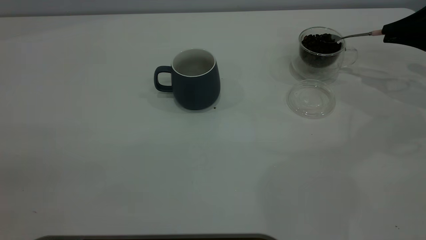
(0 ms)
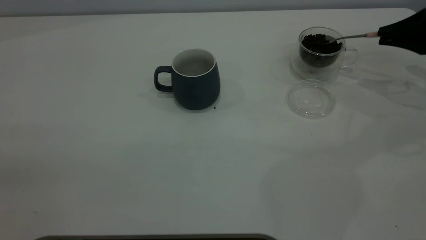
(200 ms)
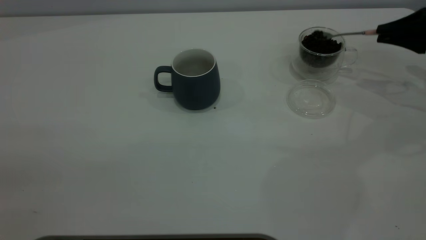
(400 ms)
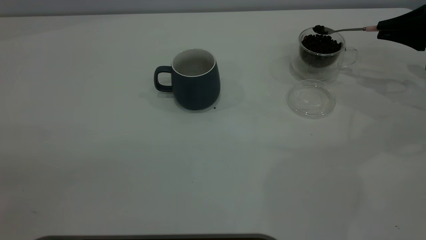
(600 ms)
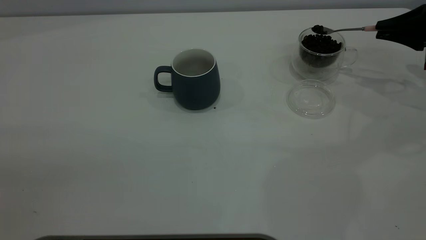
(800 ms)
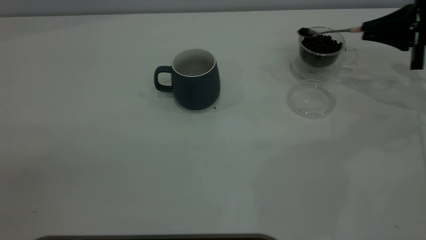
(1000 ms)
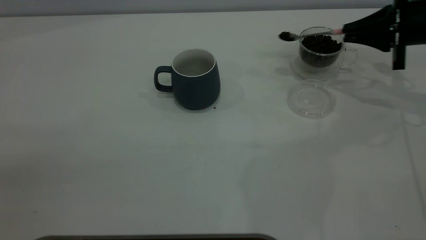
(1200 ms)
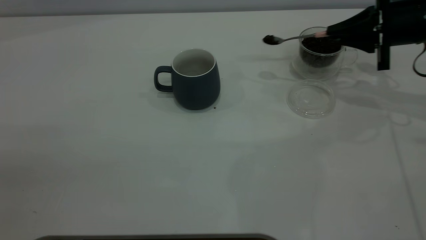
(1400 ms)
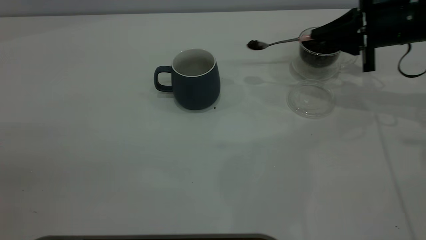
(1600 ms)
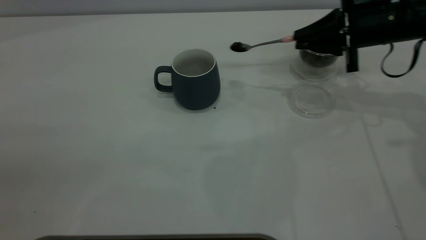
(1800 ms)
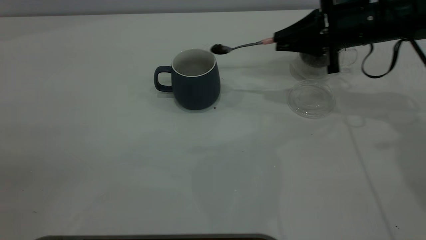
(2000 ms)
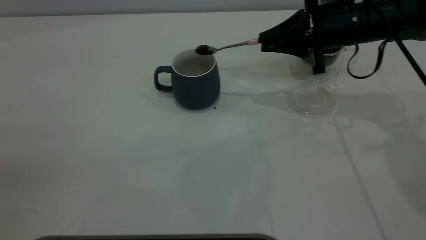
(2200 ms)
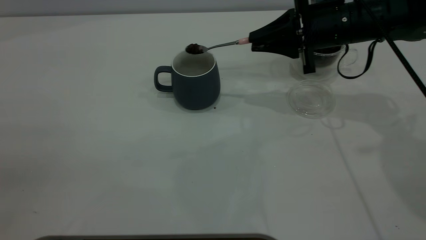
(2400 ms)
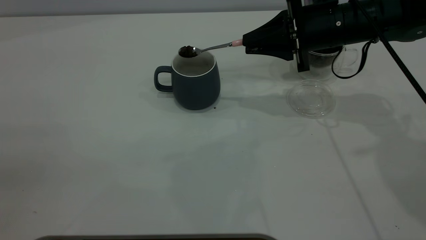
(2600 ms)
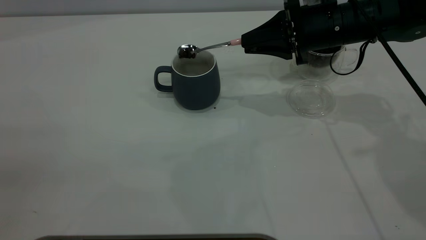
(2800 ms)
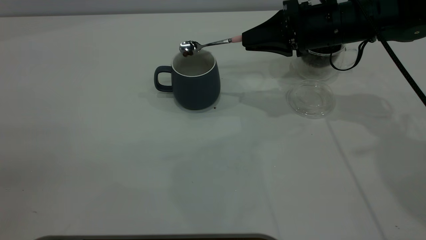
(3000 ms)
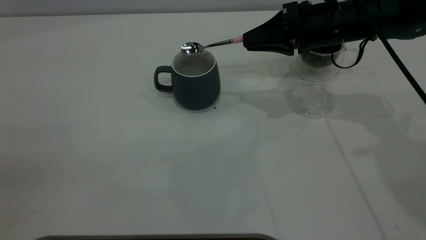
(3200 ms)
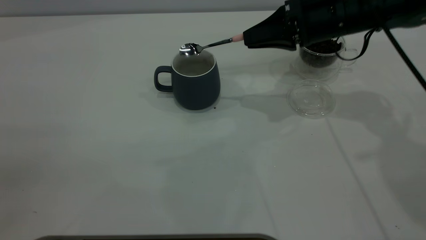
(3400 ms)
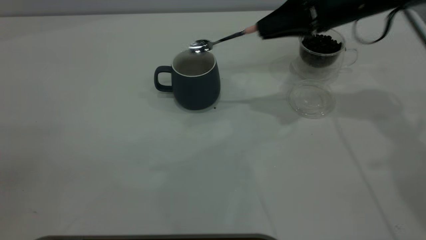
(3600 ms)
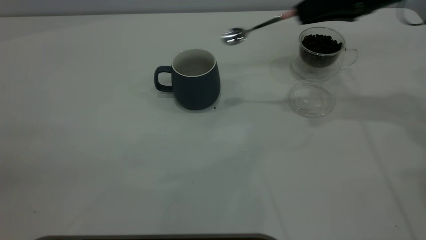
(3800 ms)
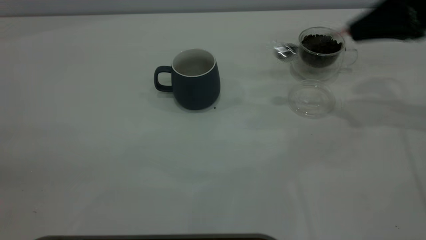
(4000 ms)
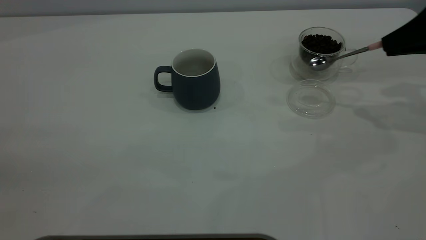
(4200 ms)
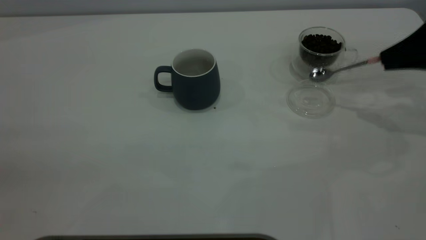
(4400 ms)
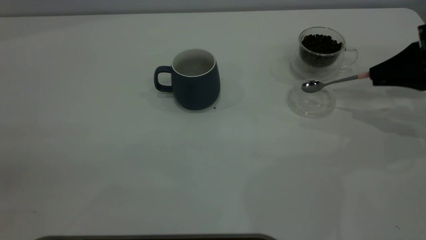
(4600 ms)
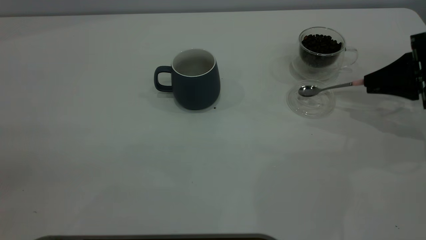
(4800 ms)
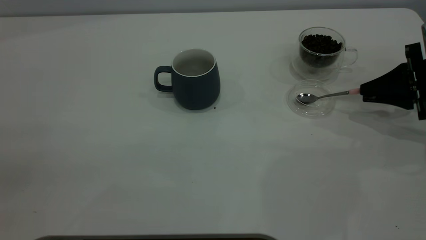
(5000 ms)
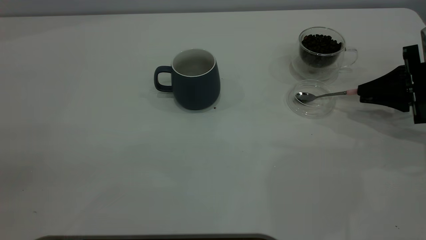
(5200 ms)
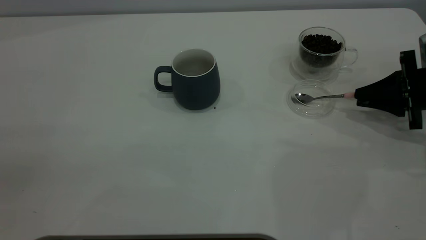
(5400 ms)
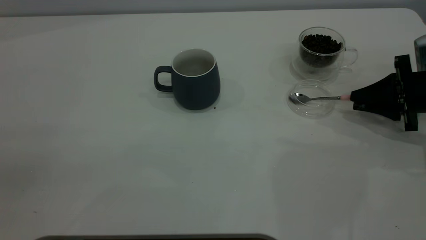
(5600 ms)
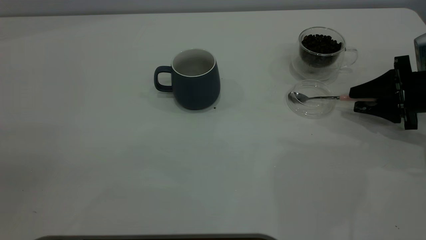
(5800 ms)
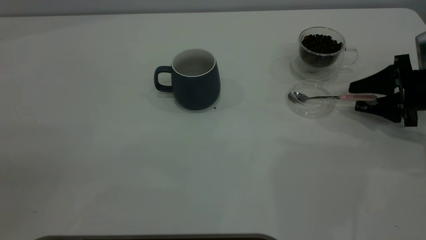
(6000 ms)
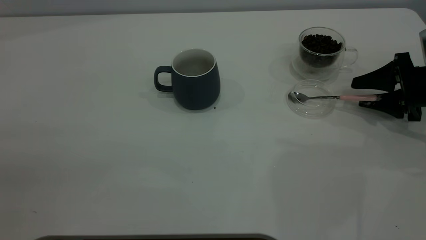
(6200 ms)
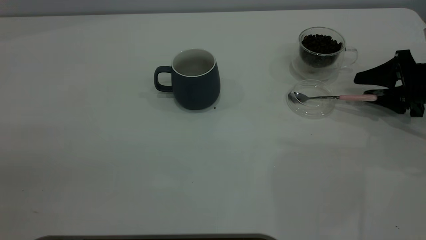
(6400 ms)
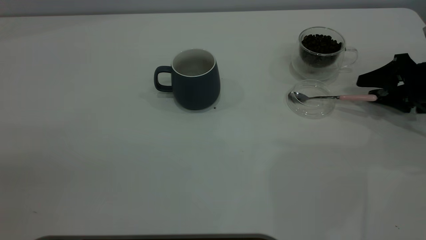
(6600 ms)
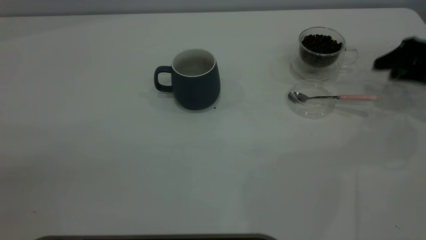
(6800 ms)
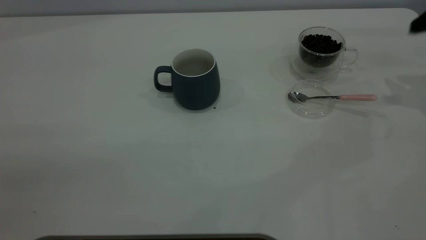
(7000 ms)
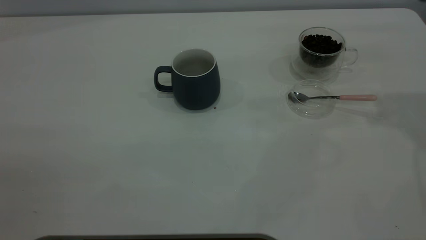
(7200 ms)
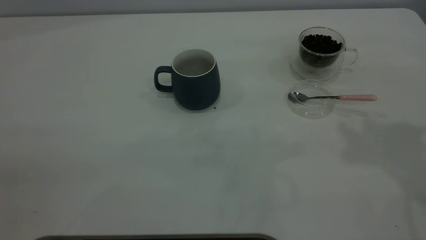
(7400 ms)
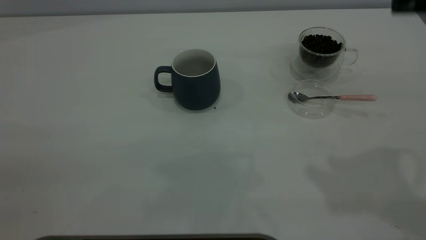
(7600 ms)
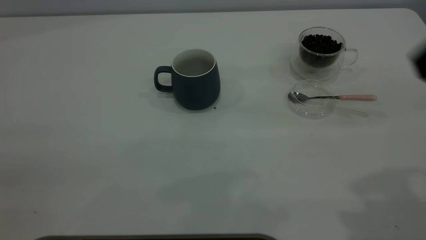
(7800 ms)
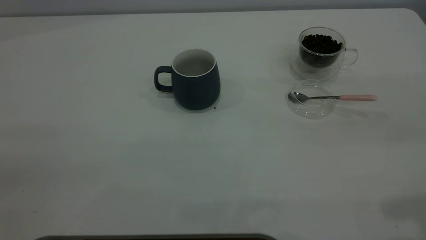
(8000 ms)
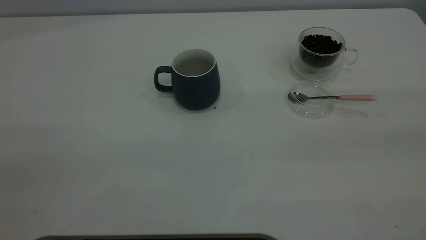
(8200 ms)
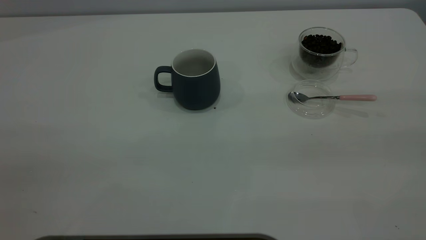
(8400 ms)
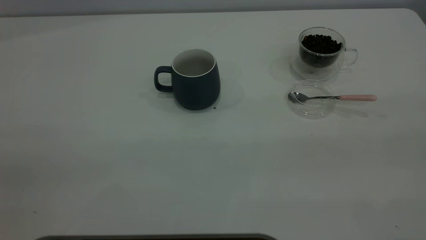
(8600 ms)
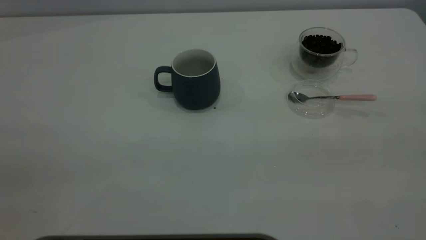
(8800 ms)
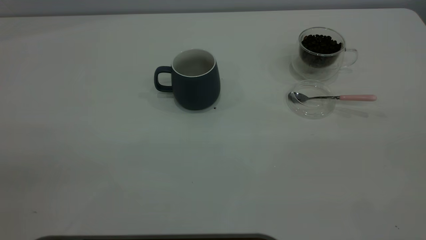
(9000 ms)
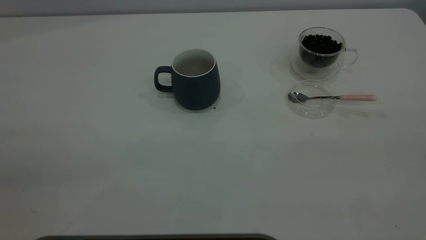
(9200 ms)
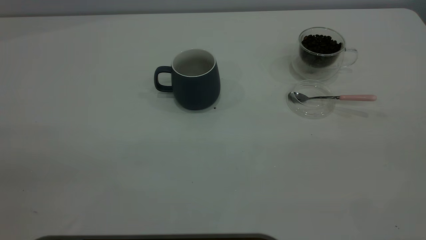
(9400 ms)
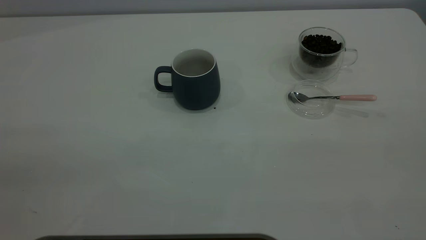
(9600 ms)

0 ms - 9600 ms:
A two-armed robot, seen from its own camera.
Task of the whole recording: the left gripper place the grey cup in the center of the table, the right gripper take the pink spoon from the cup lid and scoop out the coffee beans from the coffee cup and put them into the grey cup, the right gripper put the spoon back into the cup lid.
Step, 0 ms - 3400 ms: Scoop a spoonful of beans into the cup.
Step, 3600 ms - 6600 ms: Place the spoon back in its original place.
0 ms - 1600 ms: The right gripper shifts some 10 cm to the left.
1600 ms - 3200 ms: The right gripper travels to the left by approximately 10 cm.
3200 ms - 4800 ms: The right gripper is displaced to the right by roughly 20 cm.
4800 ms - 6400 ms: The right gripper opens.
6400 ms - 8000 ms: The right gripper moves upward and backward, approximately 35 cm.

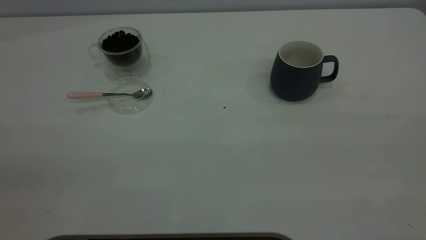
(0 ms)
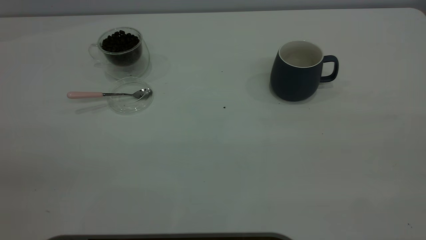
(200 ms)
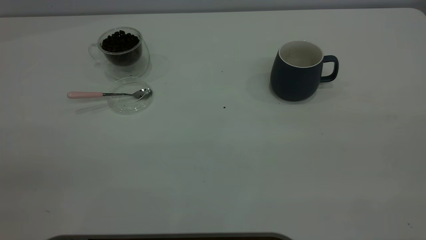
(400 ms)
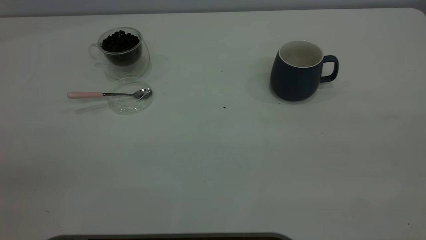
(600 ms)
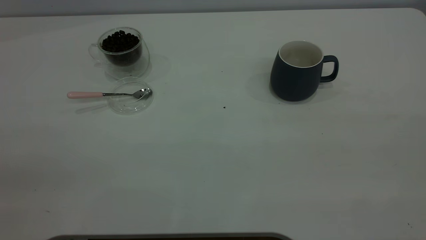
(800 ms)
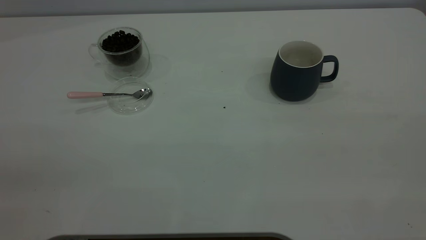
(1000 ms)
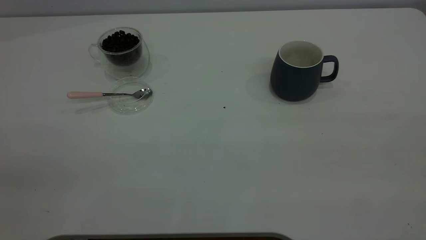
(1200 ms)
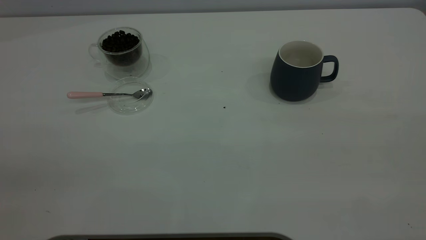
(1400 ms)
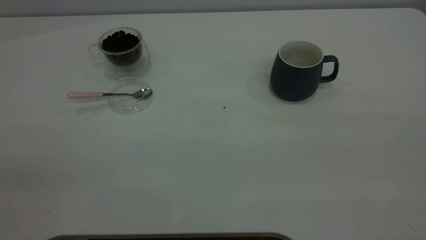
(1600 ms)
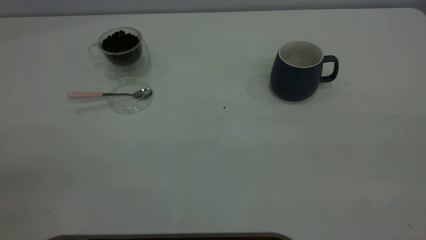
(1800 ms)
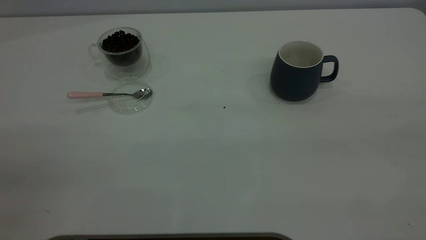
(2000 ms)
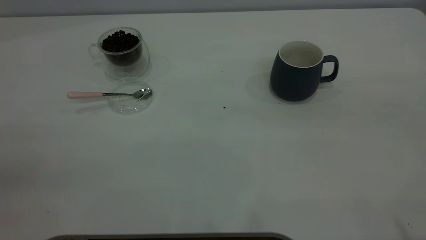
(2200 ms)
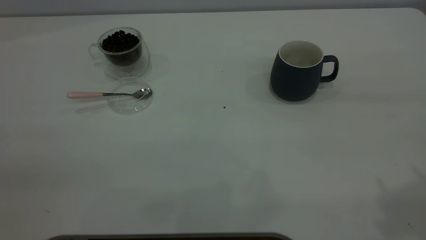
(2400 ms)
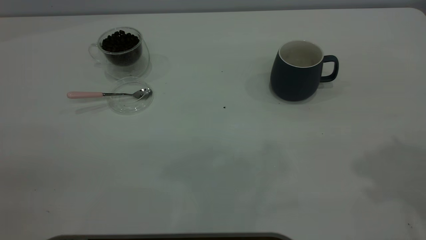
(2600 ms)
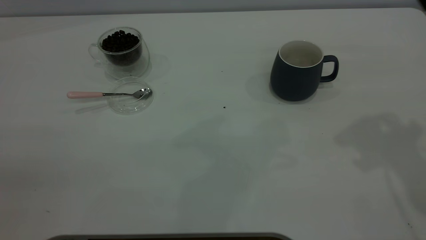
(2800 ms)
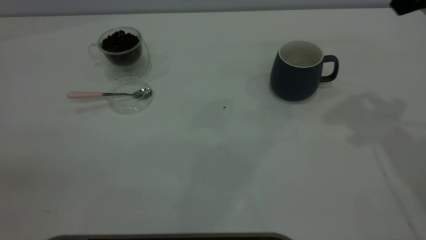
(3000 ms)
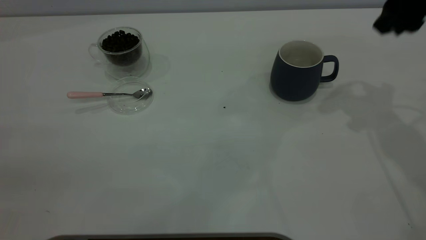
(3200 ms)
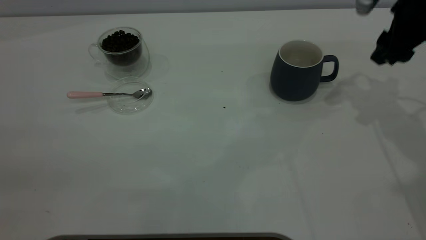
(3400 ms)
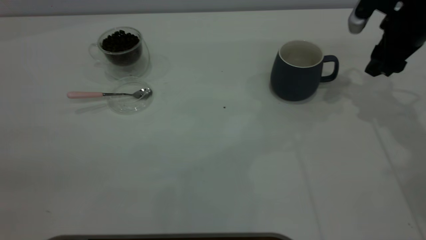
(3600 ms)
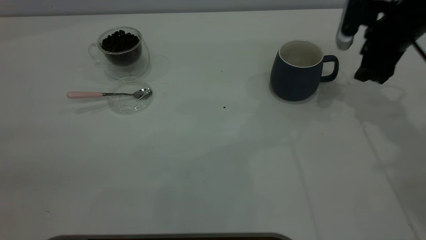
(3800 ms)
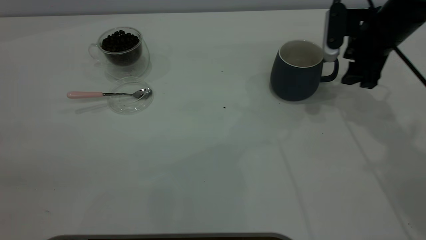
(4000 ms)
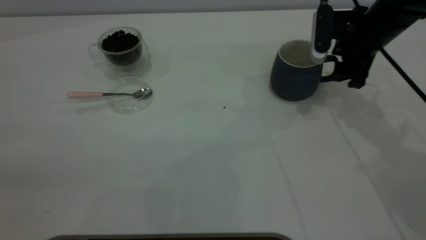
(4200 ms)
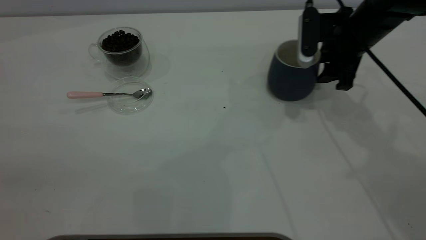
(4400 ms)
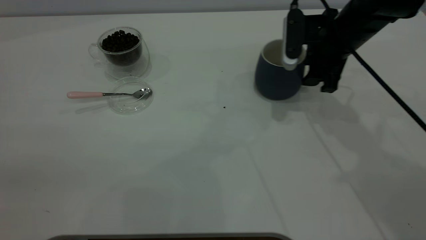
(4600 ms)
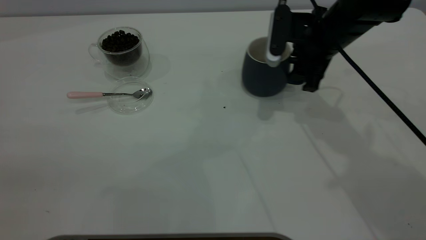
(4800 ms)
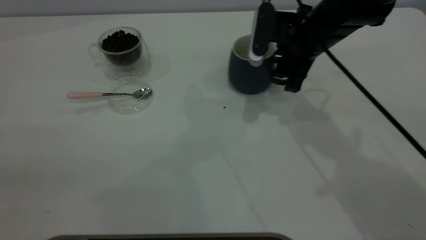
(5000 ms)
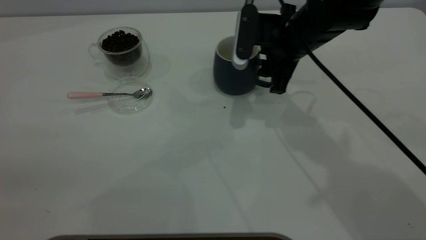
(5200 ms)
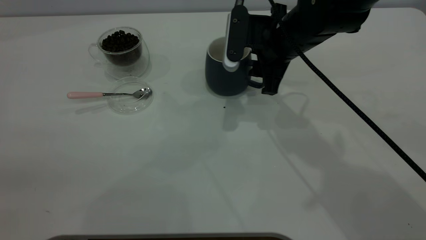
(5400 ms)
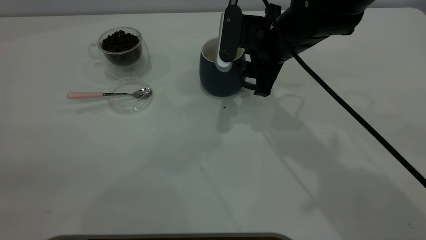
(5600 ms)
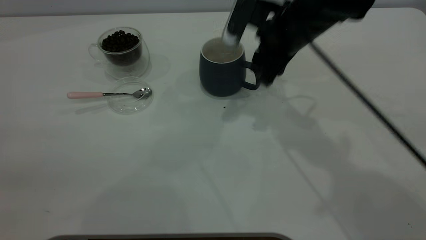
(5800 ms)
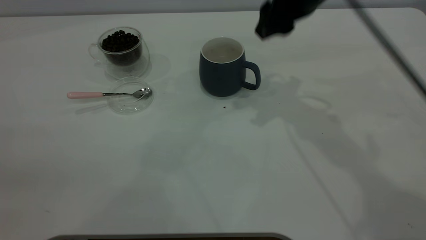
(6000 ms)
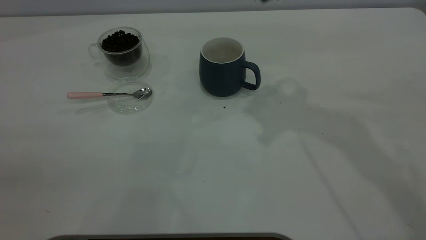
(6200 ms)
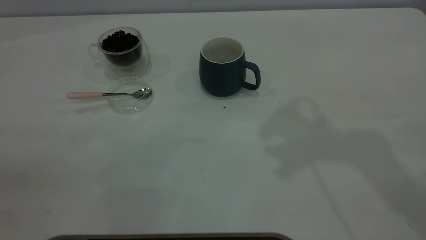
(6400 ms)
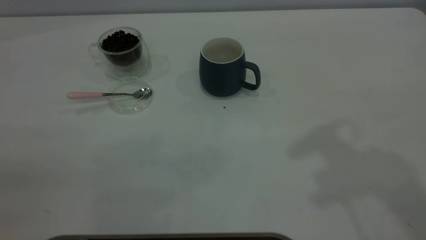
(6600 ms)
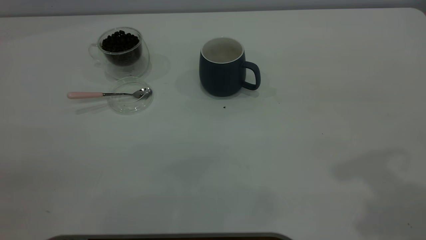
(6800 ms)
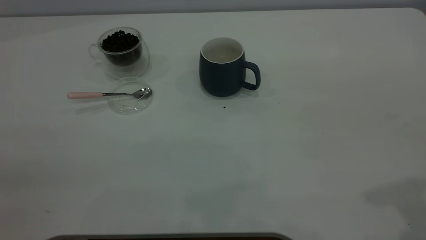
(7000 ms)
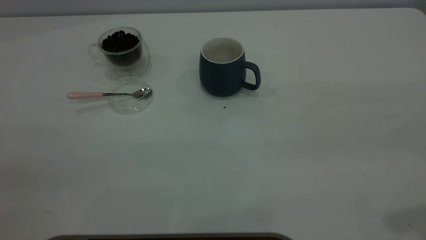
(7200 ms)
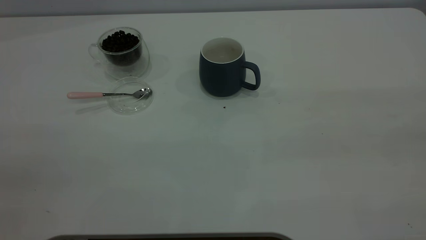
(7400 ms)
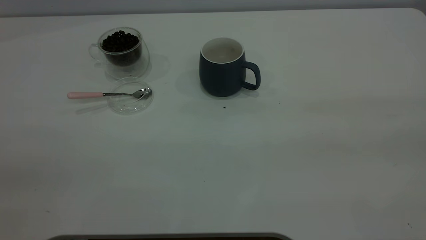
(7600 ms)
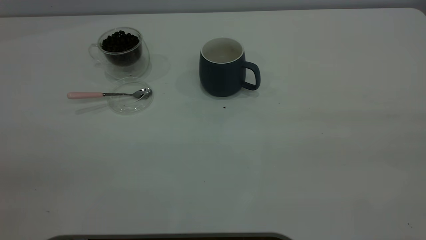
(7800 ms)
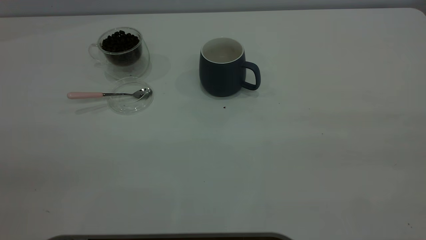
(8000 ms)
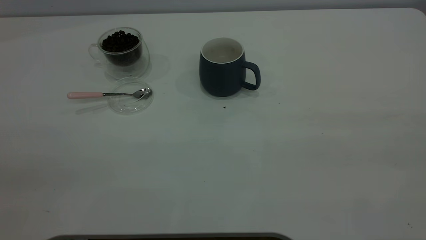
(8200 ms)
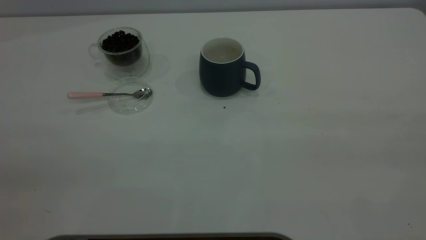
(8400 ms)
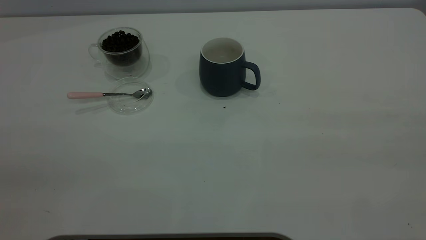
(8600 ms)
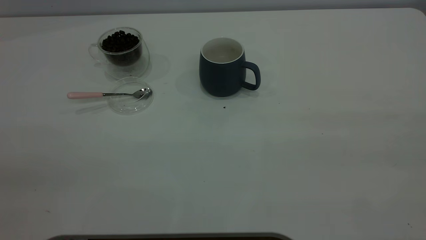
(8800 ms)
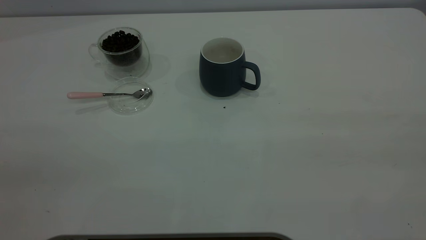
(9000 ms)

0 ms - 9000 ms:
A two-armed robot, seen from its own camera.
Task of the whole recording: the right gripper place the grey cup in the center of the table, the left gripper take the pink spoon from the cup lid and scoop out the coffee beans from the coffee cup and put them into the grey cup, the left gripper put the spoon back into the cup lid.
Step, 0 ms - 6000 ms: Move the cup to the center of view.
0 ms - 1600 ms: Neither gripper changes place.
3000 ms - 4400 ms: The right gripper shifts some 20 cm downward, forward and to the left.
4400 ms - 6000 ms: The right gripper goes some 15 cm upward and to the left, and closes up.
6000 ms - 7600 ms: The right gripper shifts some 40 cm backward and to the right.
